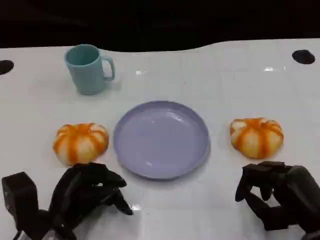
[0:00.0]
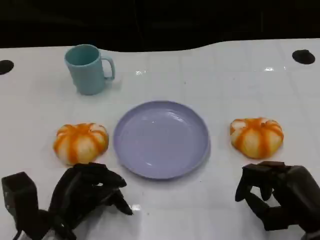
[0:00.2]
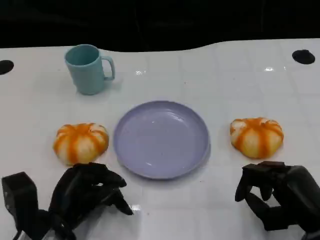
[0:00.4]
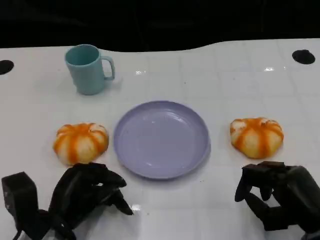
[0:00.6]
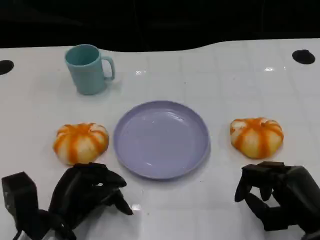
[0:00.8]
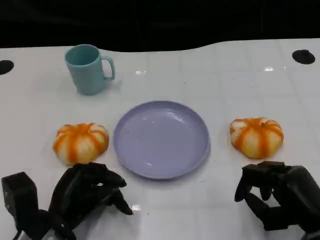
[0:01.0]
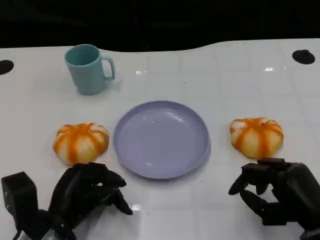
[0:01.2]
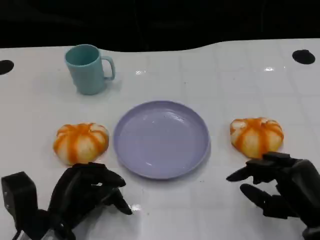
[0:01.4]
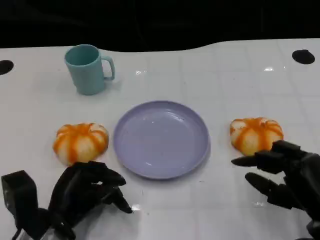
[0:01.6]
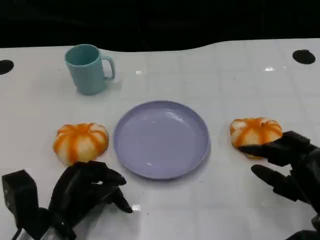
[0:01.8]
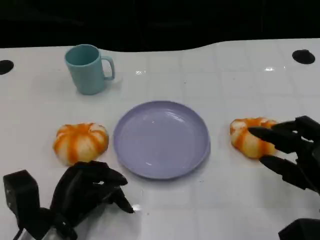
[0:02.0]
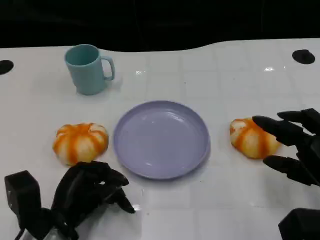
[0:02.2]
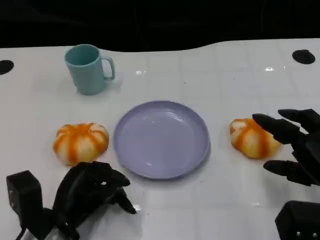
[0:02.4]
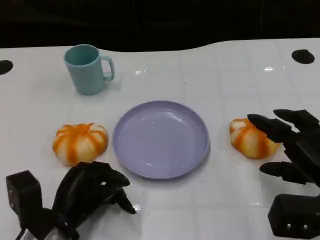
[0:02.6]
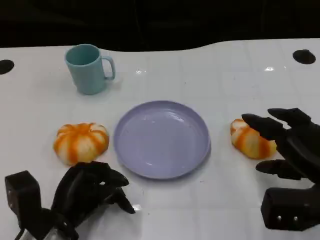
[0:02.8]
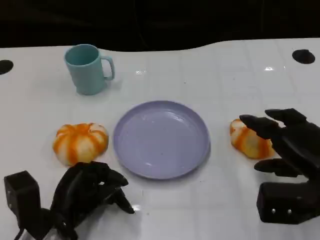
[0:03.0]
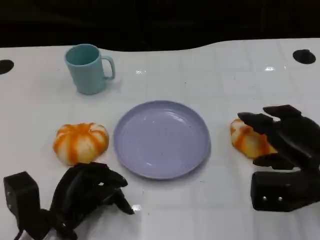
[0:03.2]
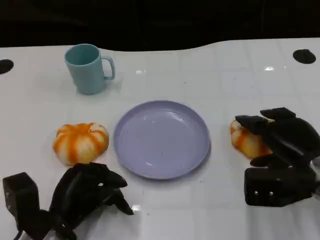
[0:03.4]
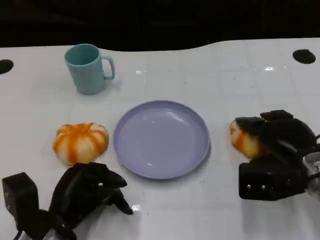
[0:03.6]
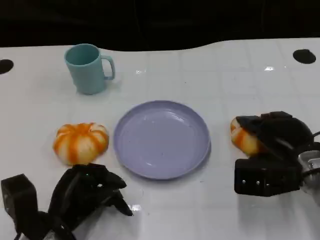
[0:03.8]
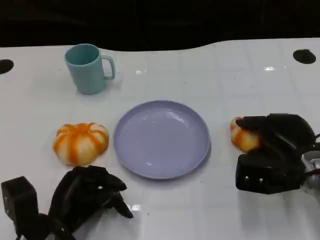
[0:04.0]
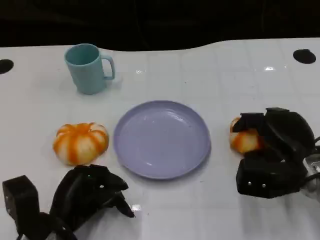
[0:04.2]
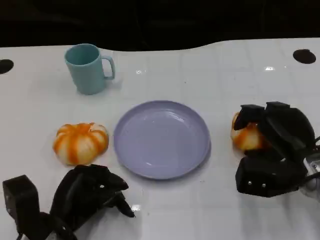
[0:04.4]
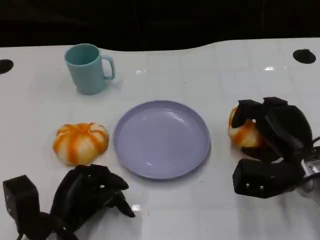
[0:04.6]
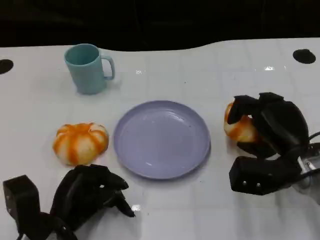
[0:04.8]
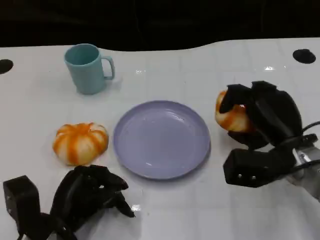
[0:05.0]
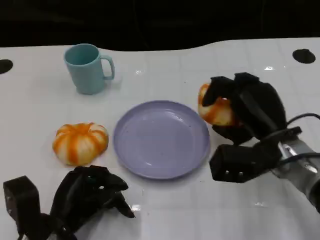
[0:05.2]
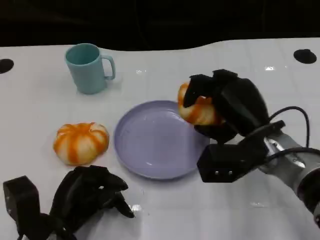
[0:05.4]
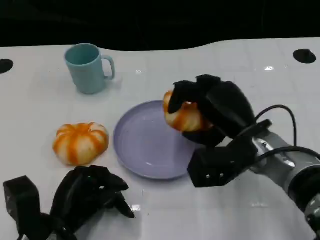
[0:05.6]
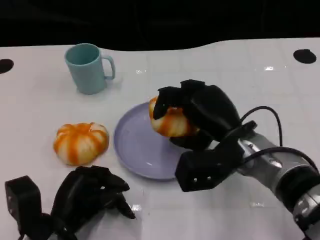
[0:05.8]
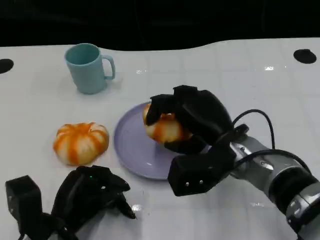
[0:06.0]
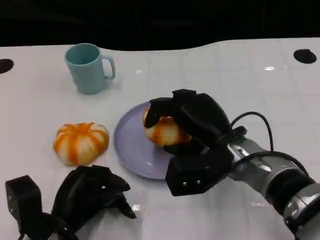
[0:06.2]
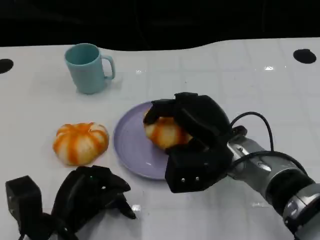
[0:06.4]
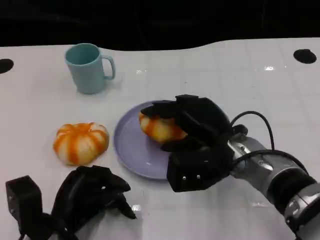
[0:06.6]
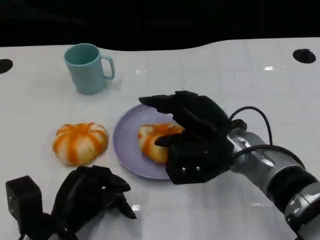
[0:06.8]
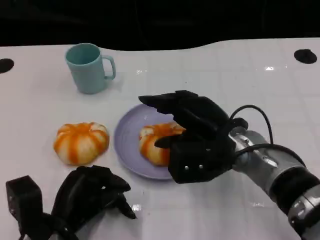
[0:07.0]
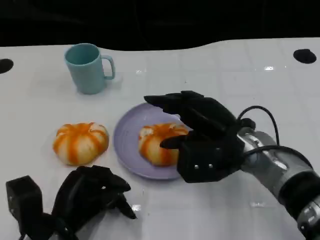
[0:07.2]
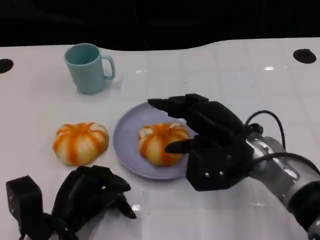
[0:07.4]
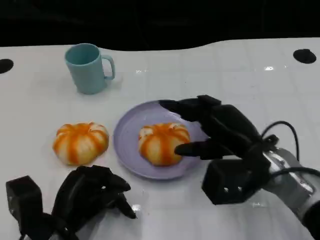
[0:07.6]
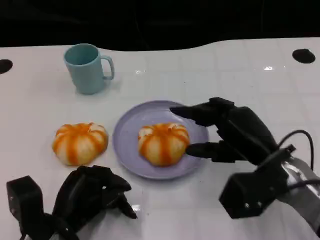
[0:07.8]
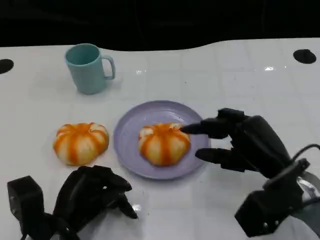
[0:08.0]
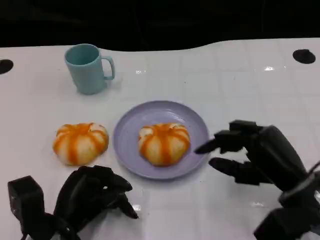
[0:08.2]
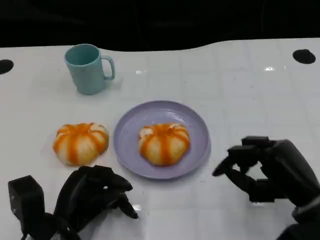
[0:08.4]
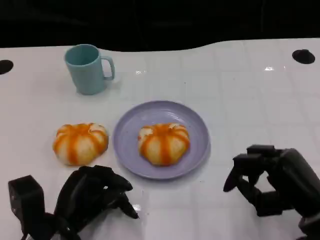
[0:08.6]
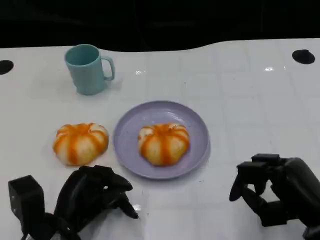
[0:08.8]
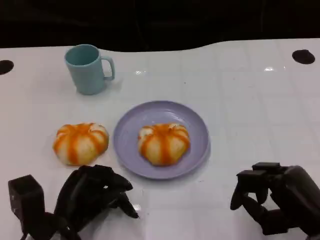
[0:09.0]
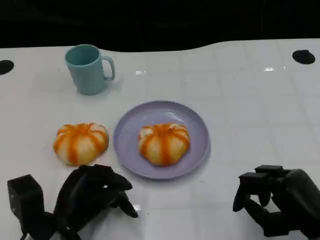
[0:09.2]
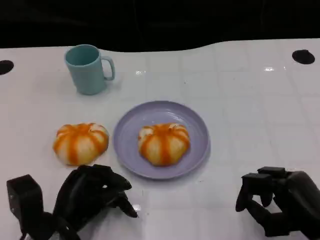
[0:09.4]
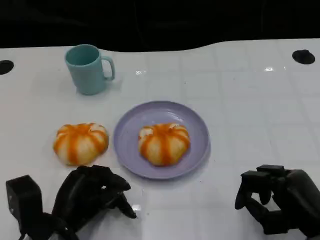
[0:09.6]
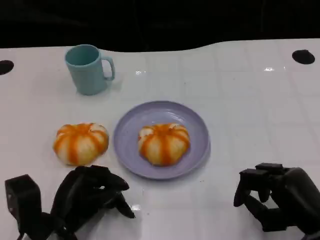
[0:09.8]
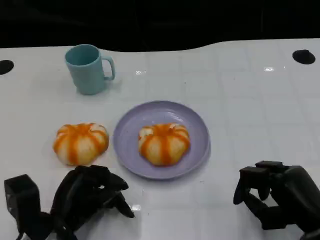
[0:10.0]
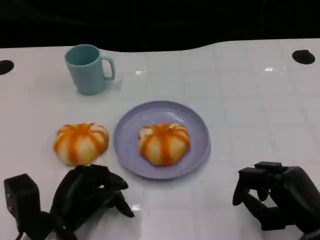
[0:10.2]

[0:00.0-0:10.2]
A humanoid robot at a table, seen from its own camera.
Task of the whole recording: Grasp the bread from the table and place it into the plate.
0:00.0 to 0:01.4: The hands make only small movements.
0:01.4 to 0:03.0: The right hand moves forward, about 5 cm.
0:03.0 to 0:04.4: The right hand ends up roughly 5 cm from where it was.
0:04.4 to 0:05.8: The right hand moves to the left, about 10 cm.
0:05.8 to 0:07.2: The hands make only small movements.
0:07.2 to 0:08.8: The right hand goes approximately 15 cm to the right and backward.
0:08.8 to 0:10.2: There are only small adjustments of the hands.

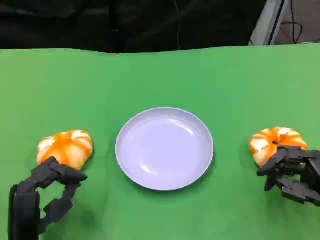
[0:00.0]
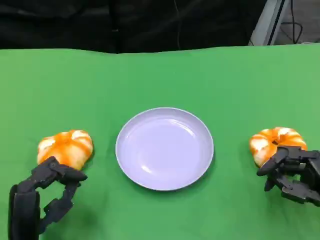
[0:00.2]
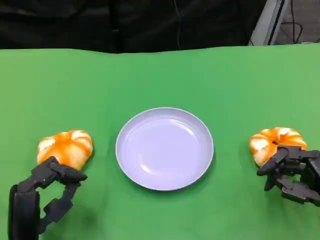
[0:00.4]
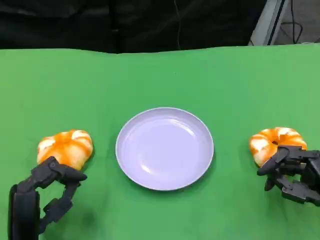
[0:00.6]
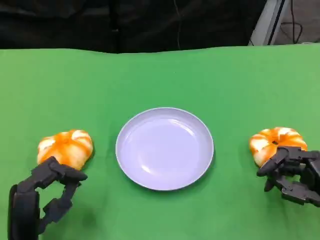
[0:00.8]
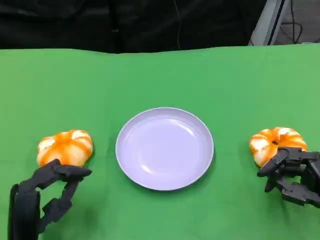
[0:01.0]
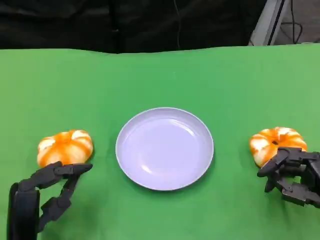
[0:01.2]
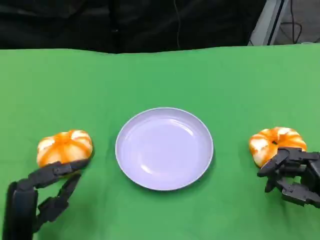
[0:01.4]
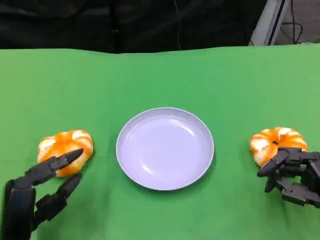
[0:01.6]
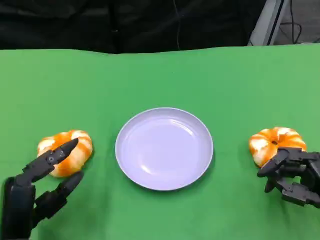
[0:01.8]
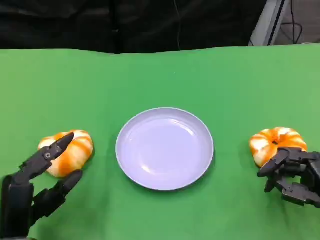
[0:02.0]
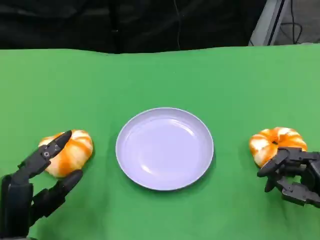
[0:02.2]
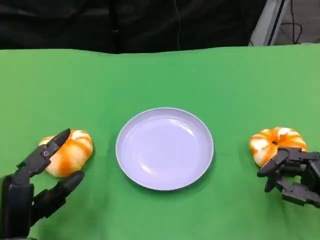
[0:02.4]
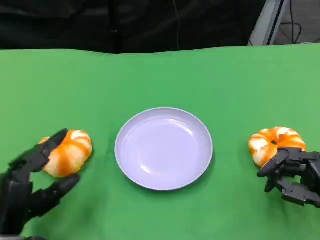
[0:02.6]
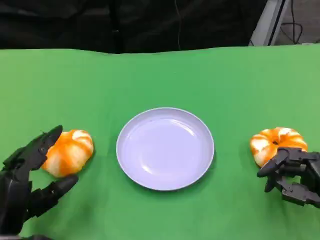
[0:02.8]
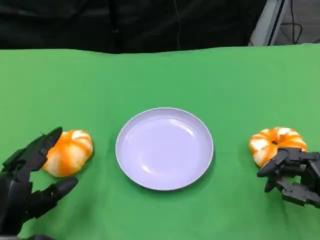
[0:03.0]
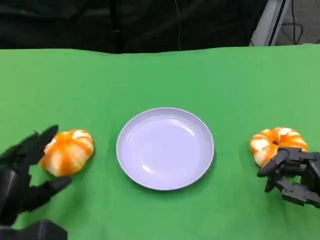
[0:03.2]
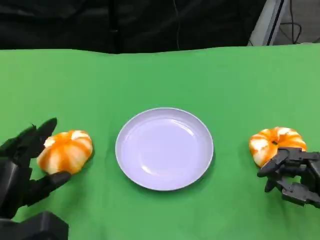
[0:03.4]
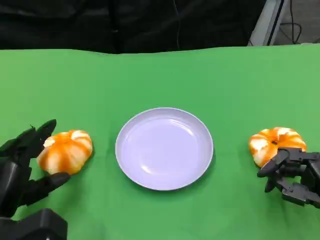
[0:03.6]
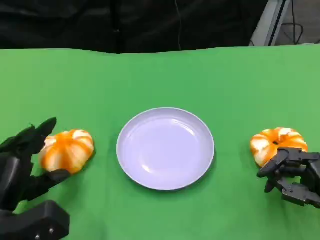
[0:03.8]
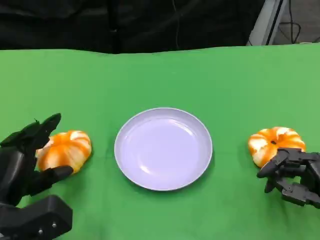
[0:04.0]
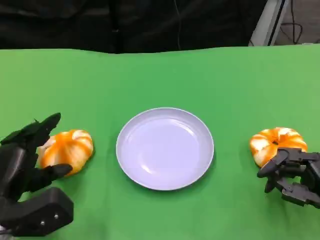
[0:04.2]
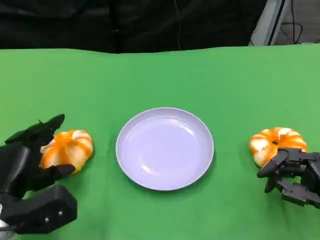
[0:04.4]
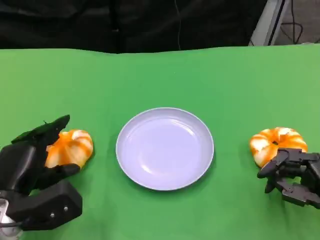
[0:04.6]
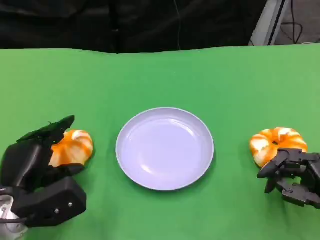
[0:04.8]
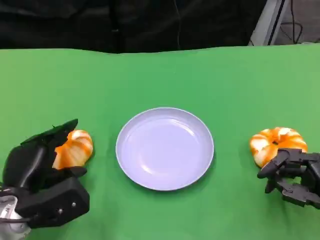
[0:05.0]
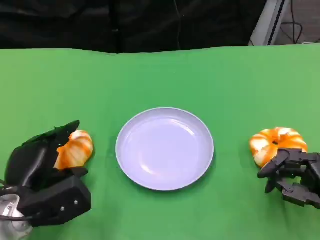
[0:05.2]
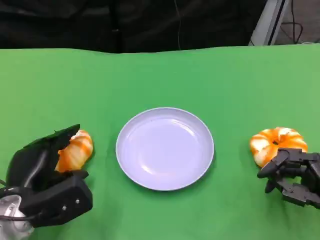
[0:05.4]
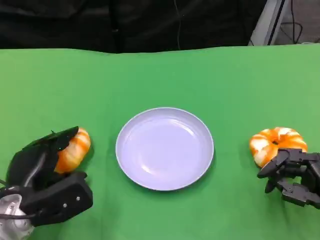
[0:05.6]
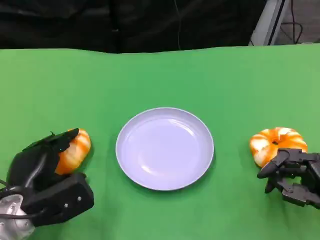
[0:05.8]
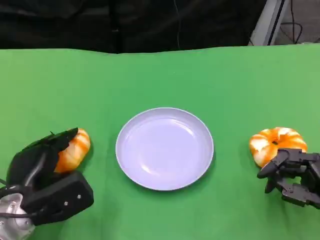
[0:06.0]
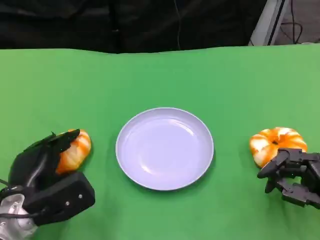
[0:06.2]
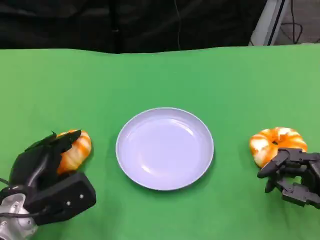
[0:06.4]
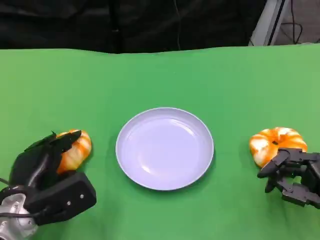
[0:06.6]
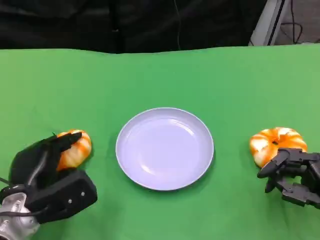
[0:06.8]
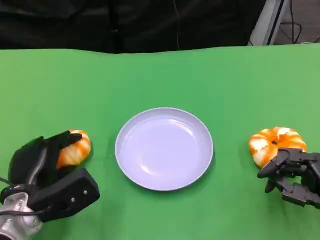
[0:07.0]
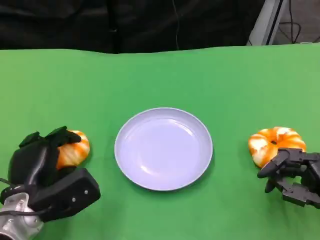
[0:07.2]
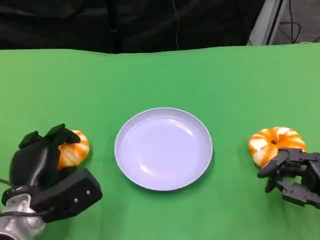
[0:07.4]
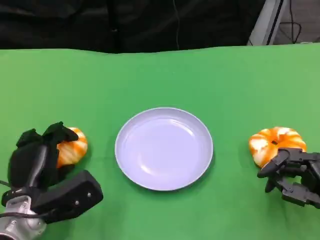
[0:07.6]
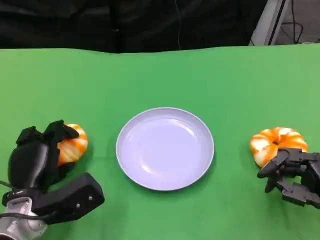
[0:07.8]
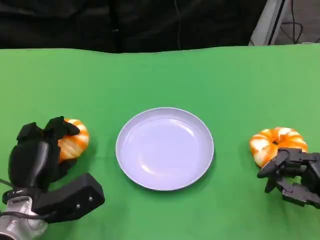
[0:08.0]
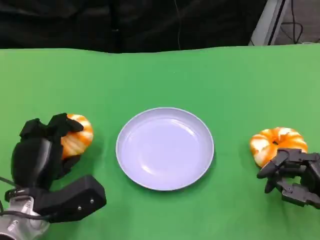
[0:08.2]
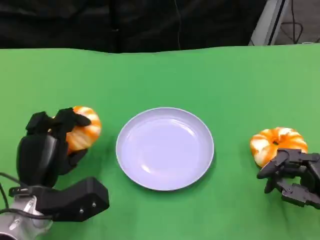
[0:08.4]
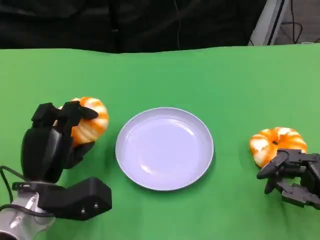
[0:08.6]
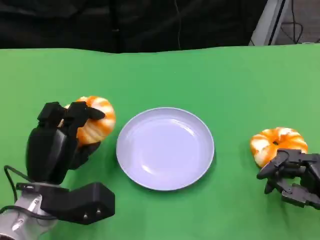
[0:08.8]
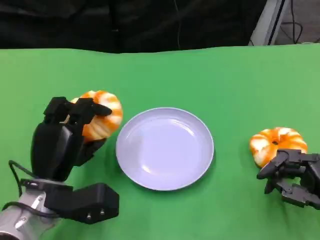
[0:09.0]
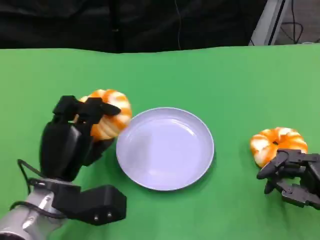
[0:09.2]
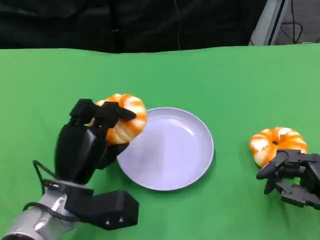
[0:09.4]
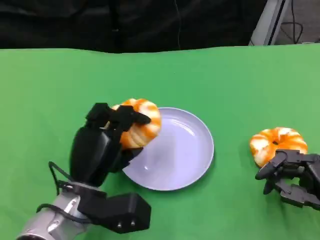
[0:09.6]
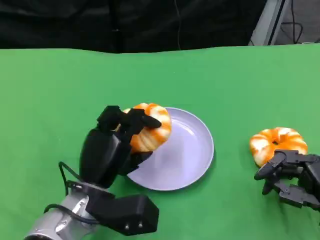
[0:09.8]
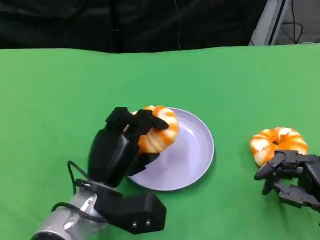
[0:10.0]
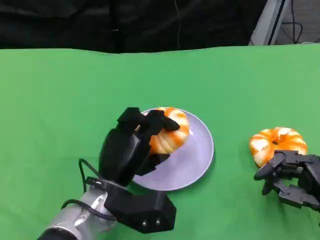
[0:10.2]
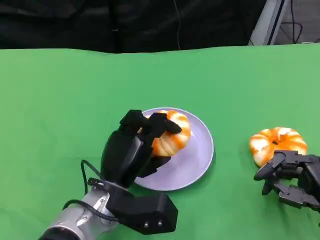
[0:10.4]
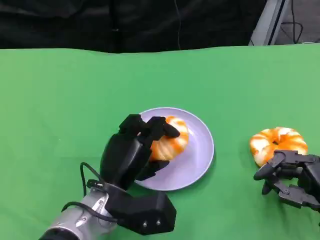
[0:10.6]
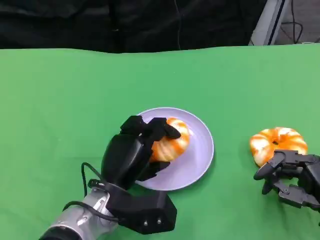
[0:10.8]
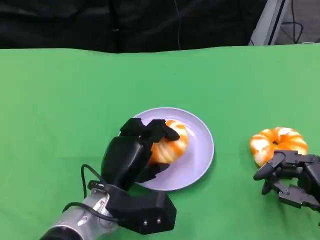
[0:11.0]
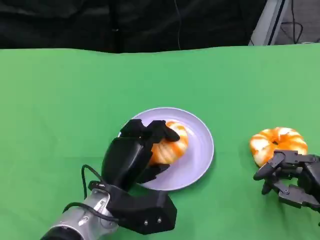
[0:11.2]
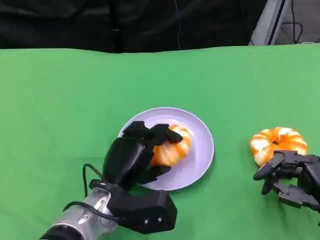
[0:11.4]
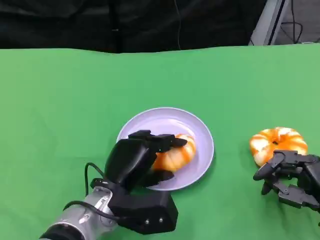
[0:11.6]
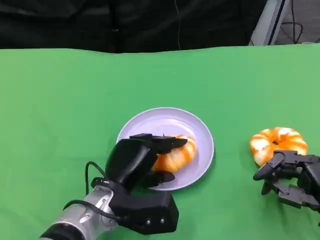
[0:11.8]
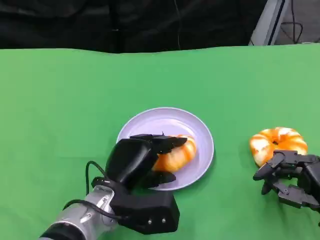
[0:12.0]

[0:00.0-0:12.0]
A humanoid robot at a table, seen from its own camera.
Task of the whole recording: Grasp the bread from the table and place it into the plate.
0:00.0 to 0:01.6: The hands make only small movements.
0:01.6 to 0:03.0: The hands stay close to where they were, moving slightly.
0:03.0 to 0:04.4: The left hand moves forward, some 5 cm.
0:04.4 to 0:07.6: The hands move only a little.
0:09.0 to 0:10.4: The left hand travels to the right by roughly 10 cm.
0:10.4 to 0:12.0: There are only small adjustments of the hands.
